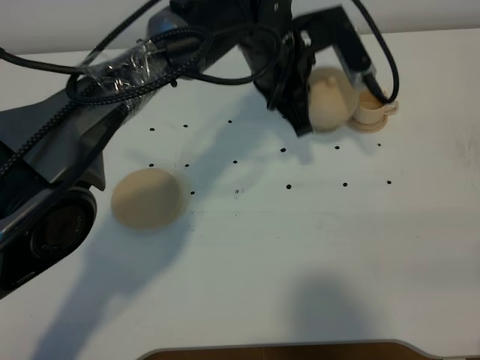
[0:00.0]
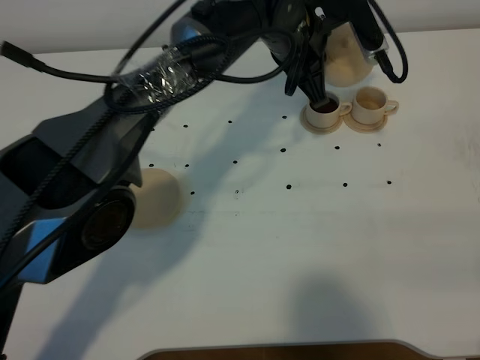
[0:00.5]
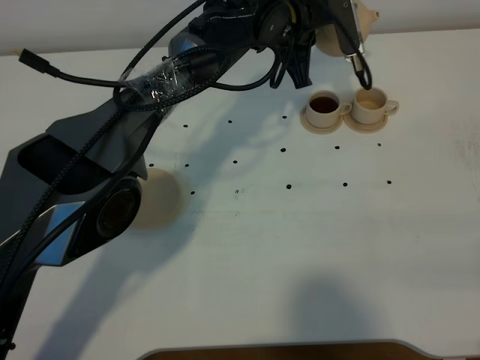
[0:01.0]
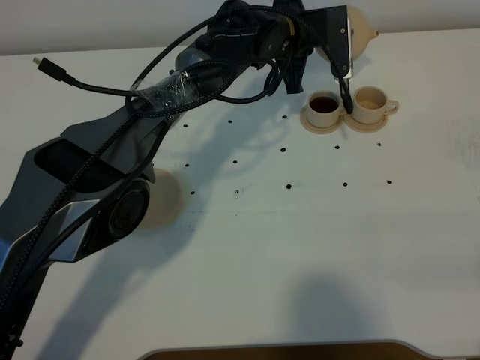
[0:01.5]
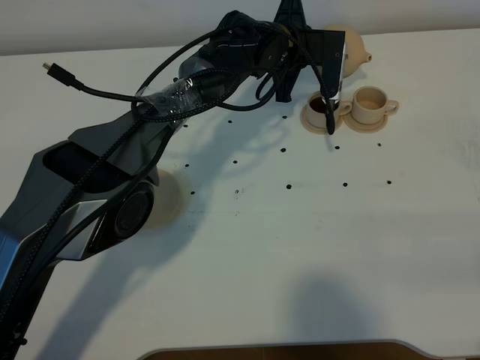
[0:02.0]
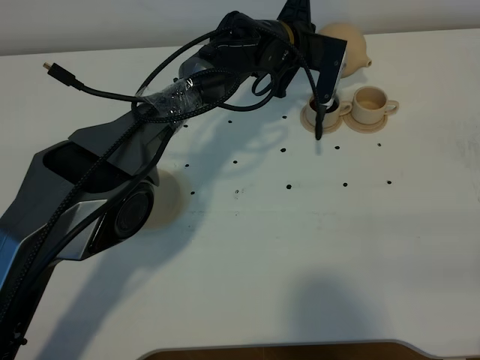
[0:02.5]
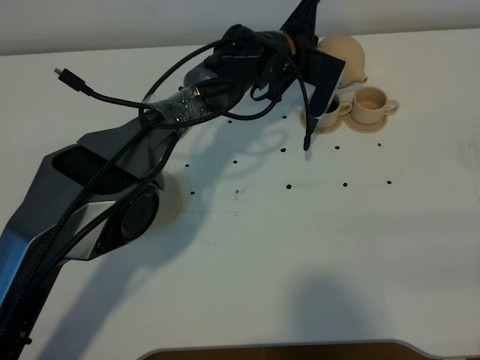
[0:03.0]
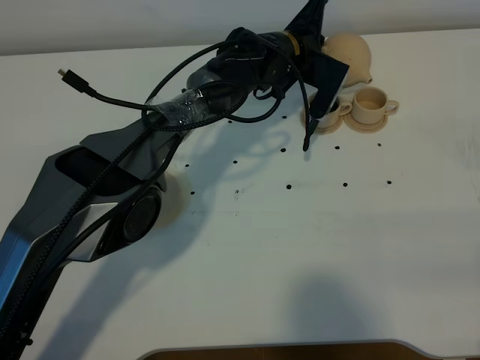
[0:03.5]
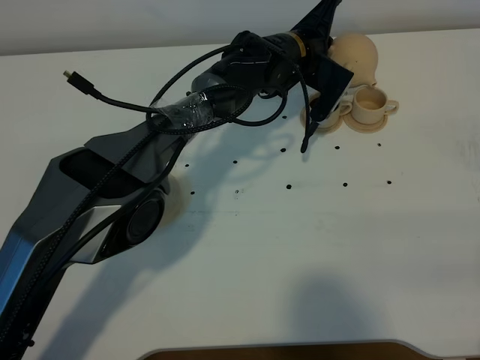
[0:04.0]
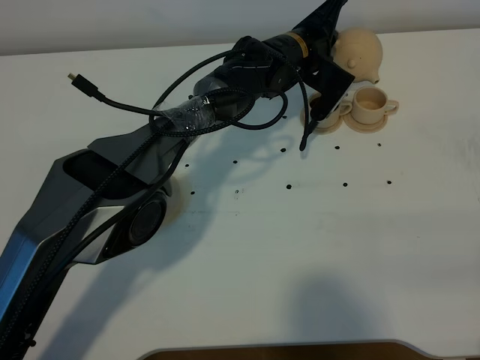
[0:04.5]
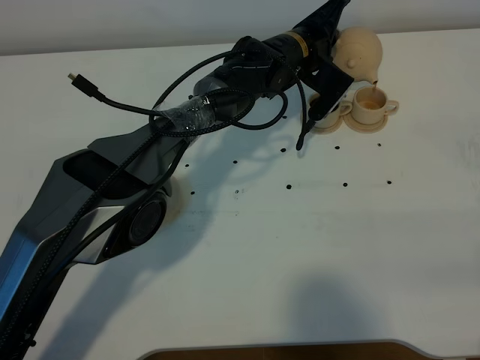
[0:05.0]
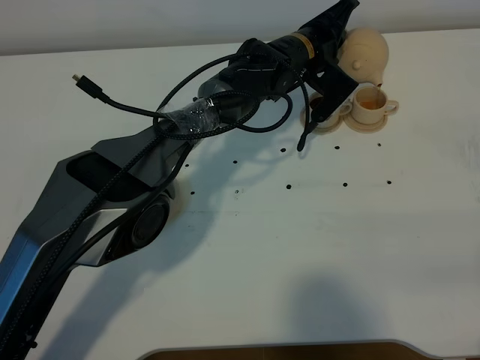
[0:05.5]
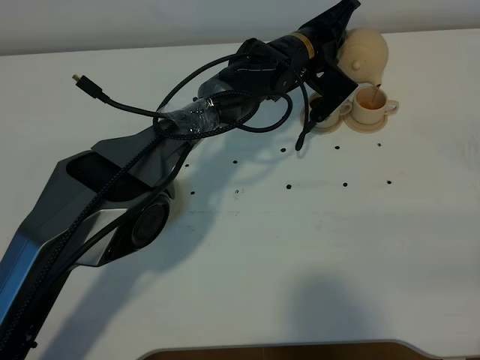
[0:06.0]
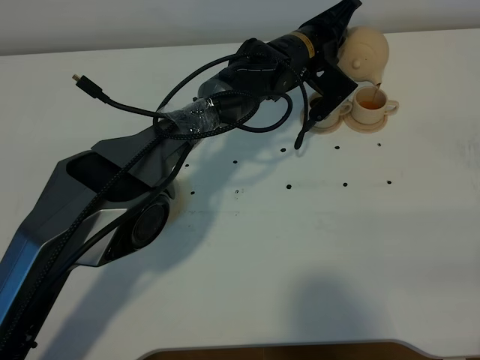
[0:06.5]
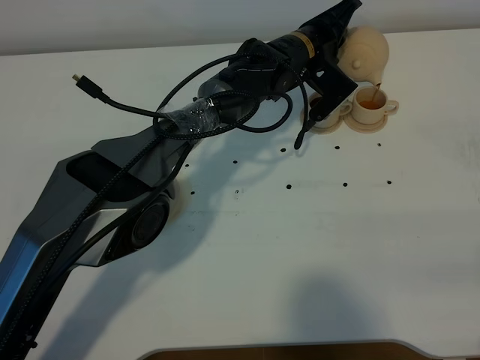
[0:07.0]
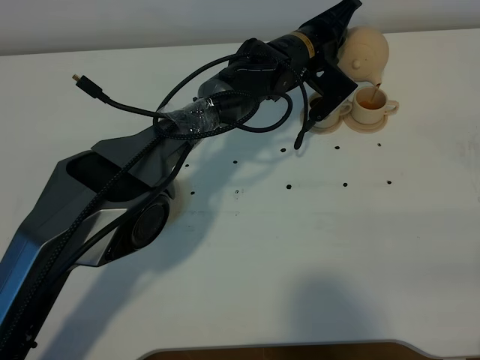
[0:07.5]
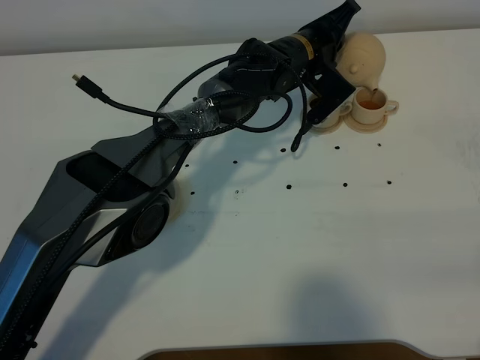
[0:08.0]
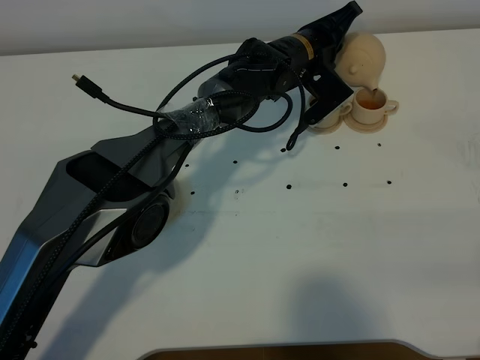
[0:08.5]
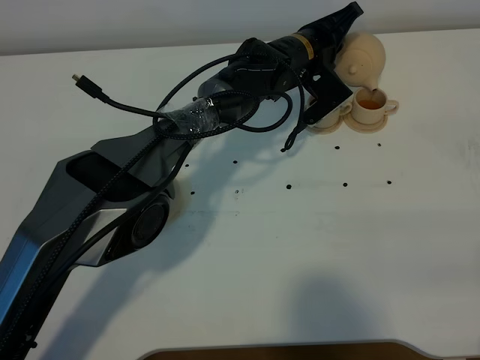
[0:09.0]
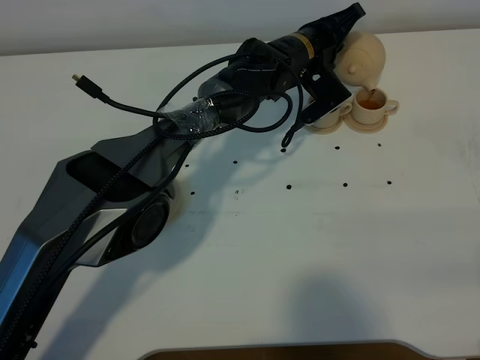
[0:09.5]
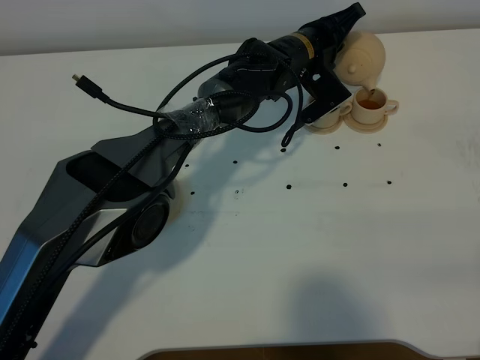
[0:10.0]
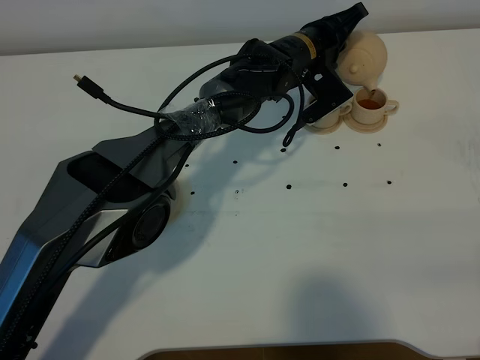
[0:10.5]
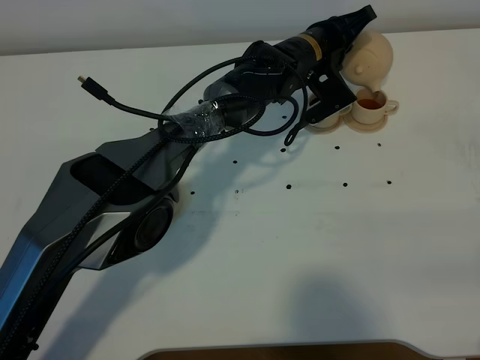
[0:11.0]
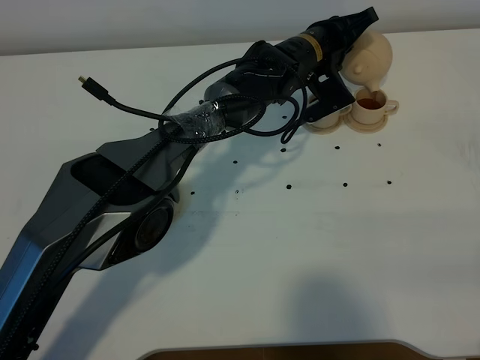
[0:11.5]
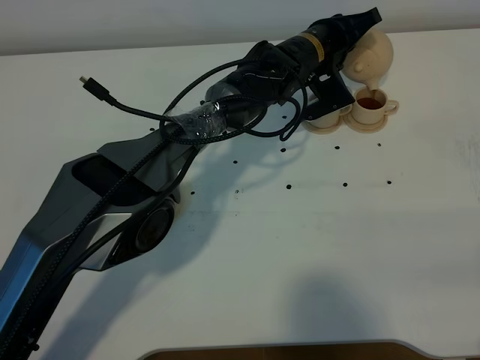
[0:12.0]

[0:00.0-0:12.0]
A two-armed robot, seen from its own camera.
Task of the whole recording: grasp the brown teapot and pour the tea into the two brown teacups one by one, put the brown teapot back in its original place.
0:00.0 to 0:02.0: The left gripper heads forward and downward, covering roughly 15 cm.
0:04.0 to 0:06.0: The grippers make only small movements.
0:06.0 to 0:08.0: Both grippers stay put.
0:08.0 to 0:12.0: The grippers stay close to where they were, moving slightly.

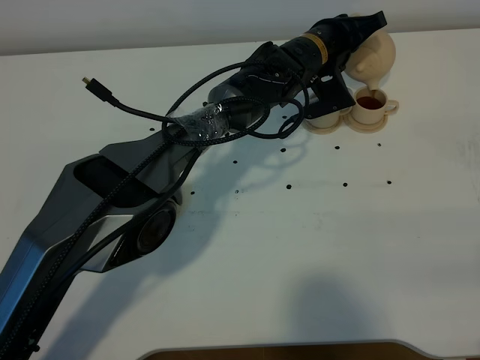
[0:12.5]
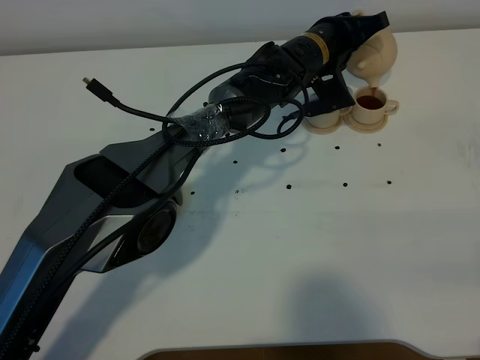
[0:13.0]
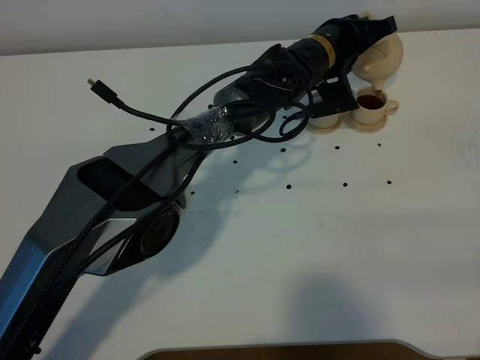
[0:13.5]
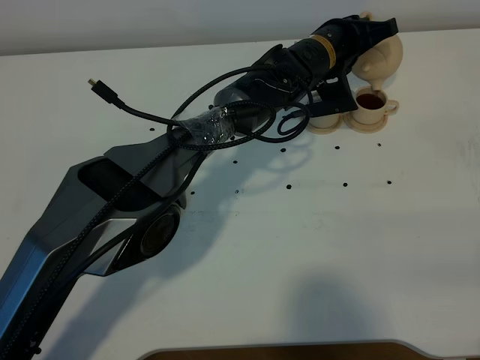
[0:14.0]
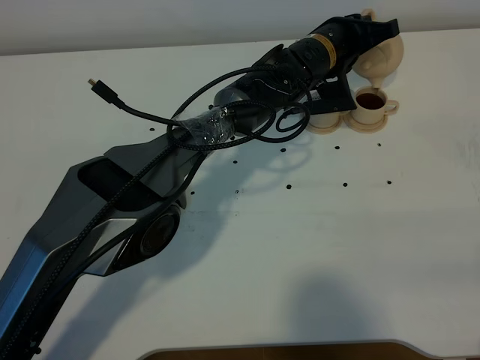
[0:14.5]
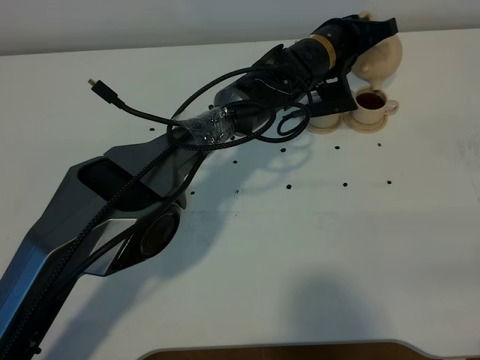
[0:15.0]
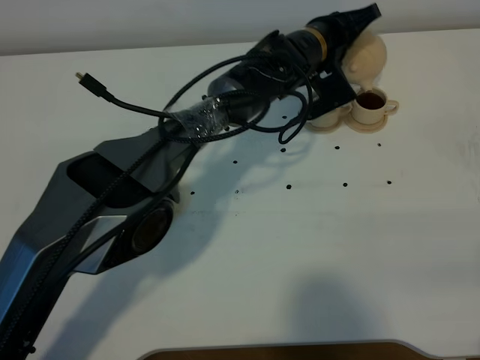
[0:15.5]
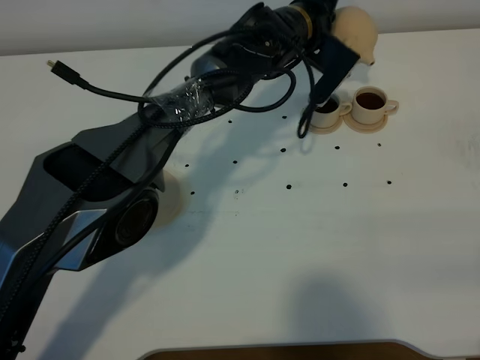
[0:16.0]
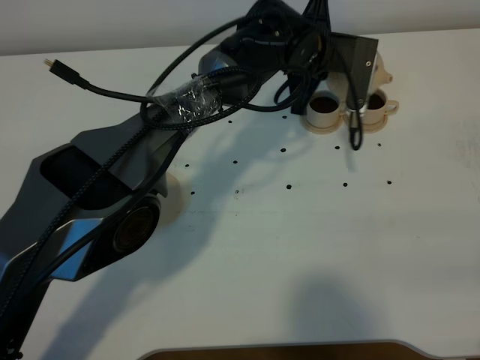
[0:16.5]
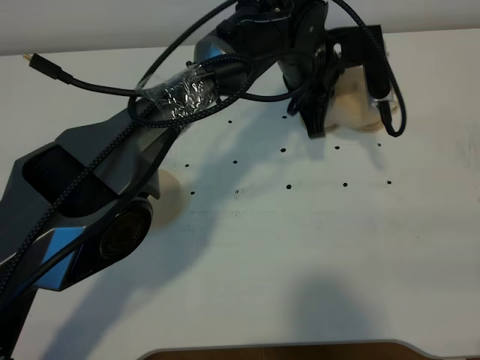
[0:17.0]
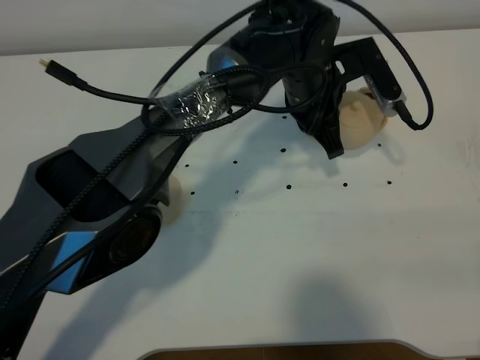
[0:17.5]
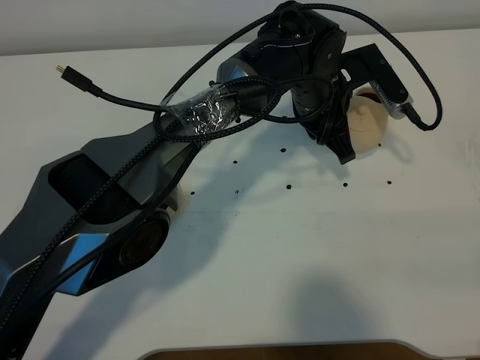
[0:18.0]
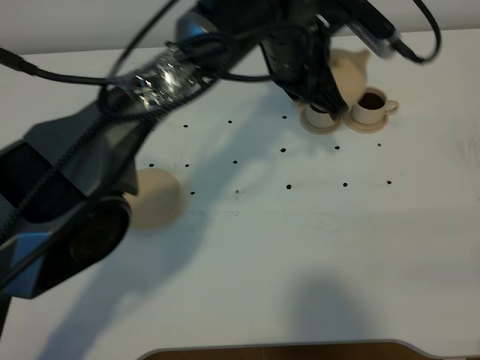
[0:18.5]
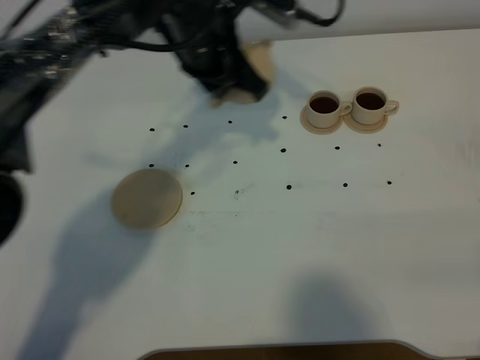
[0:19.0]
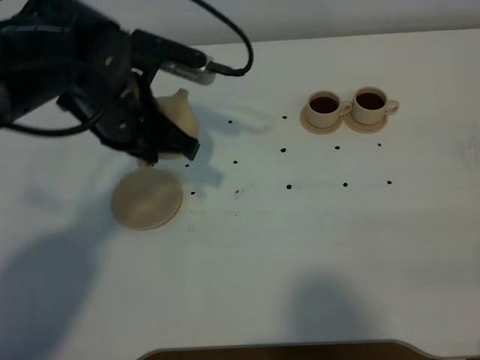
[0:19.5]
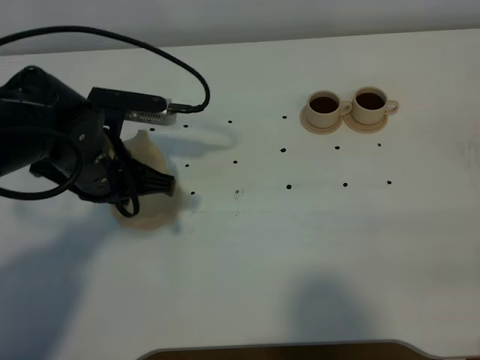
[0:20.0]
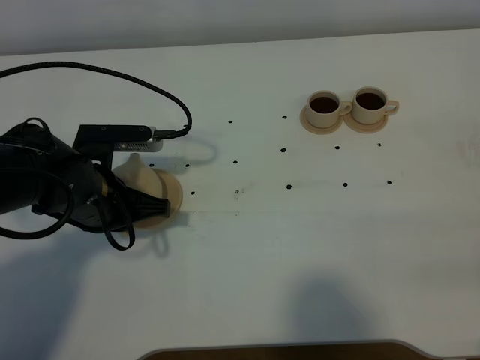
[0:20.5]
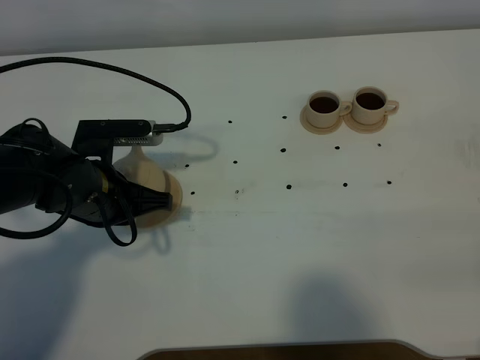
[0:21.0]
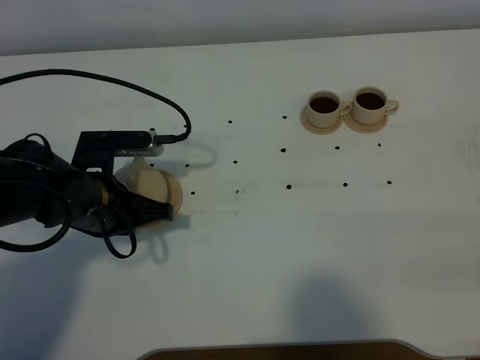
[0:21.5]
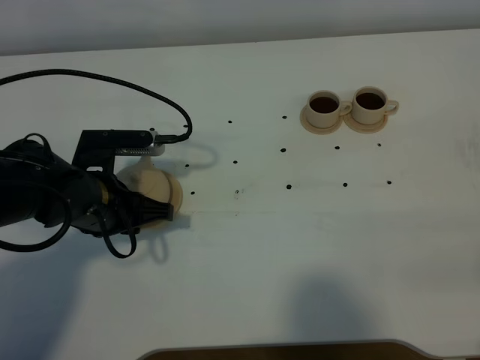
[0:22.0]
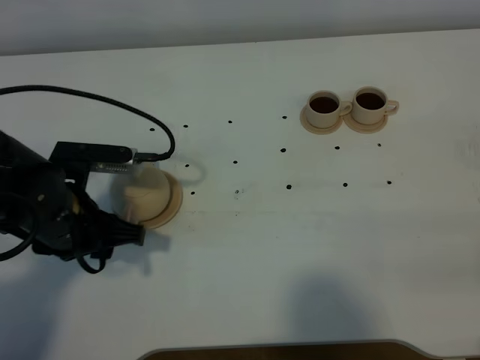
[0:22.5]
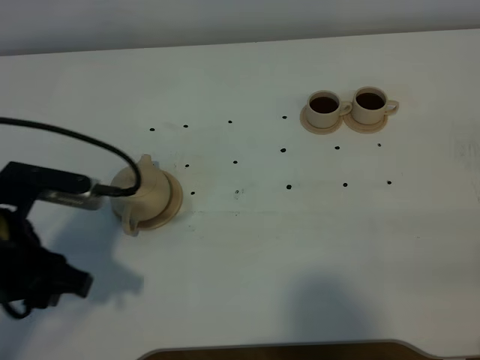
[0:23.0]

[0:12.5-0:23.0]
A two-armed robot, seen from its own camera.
Task of the whole recording: grasp the brown teapot and pour the tea into the two brown teacups one by one, put the brown teapot back in its original place.
Step, 0:12.5 to 0:15.5: Pour tea into the teacup with the left gripper.
0:12.5 to 0:14.5: The grippers make only small movements.
0:14.5 to 0:16.5: The left gripper ends up some 5 cm from where it was.
0:16.5 to 0:19.0: The left gripper is displaced to the left and upward by some 15 cm.
0:19.0 to 0:21.0: The left gripper goes approximately 20 cm to the left, backward and downward.
0:21.0 to 0:23.0: The left gripper travels backward and upward by some 15 cm, and opens up.

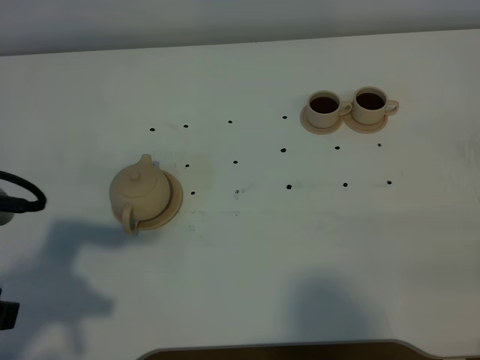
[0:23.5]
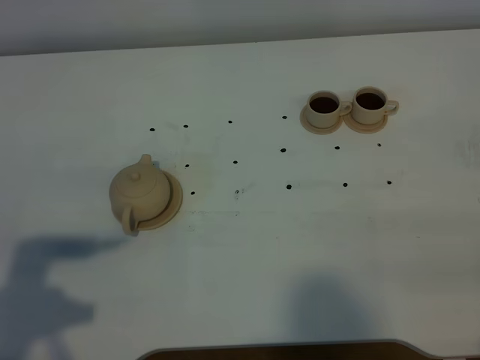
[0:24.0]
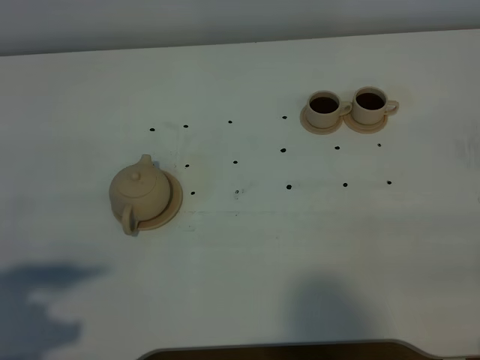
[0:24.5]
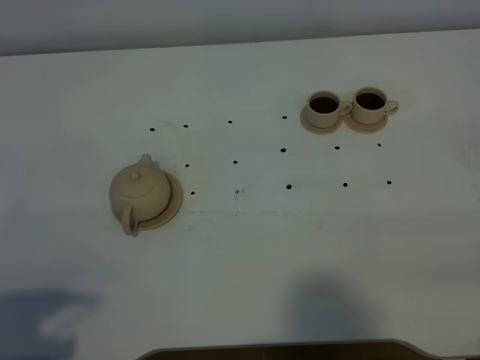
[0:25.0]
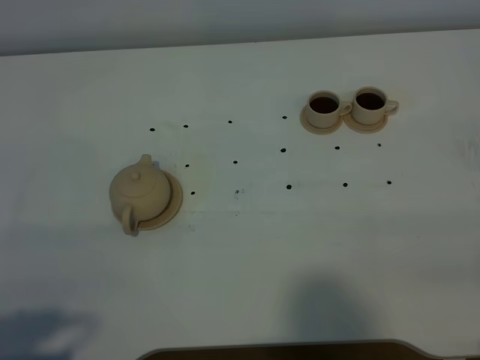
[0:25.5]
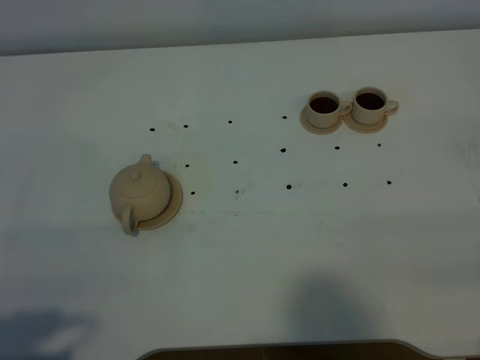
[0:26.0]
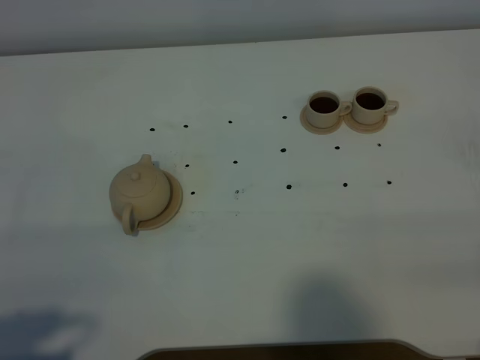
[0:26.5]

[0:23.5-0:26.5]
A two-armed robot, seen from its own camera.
Task of the whole recording: grasp the brown teapot and pour the tea into the two brown teacups one by one, put the brown teapot back in its original place.
0:23.5 to 0:25.0: The left gripper is displaced backward by some 10 cm.
